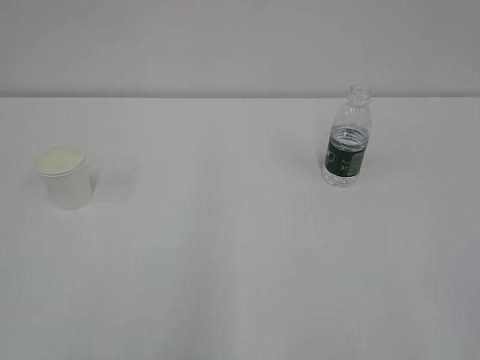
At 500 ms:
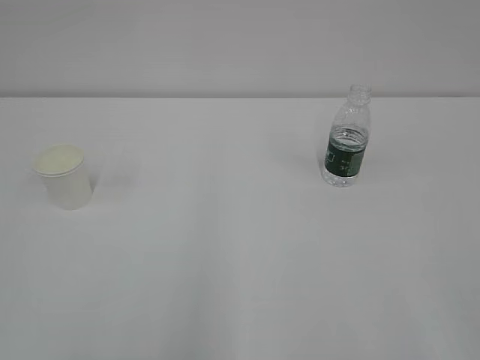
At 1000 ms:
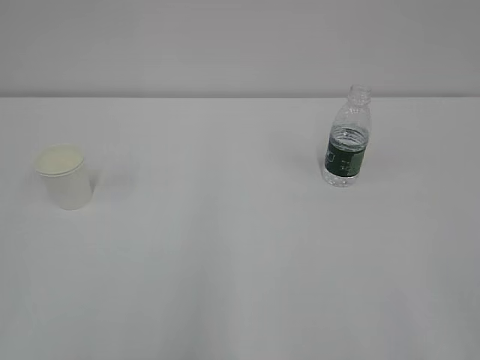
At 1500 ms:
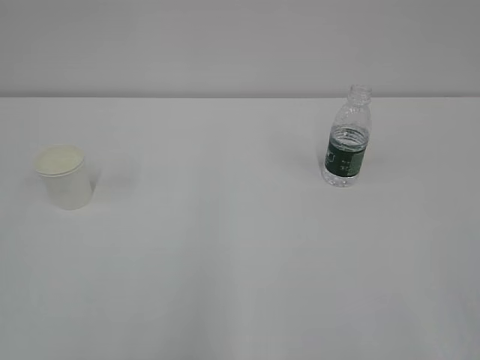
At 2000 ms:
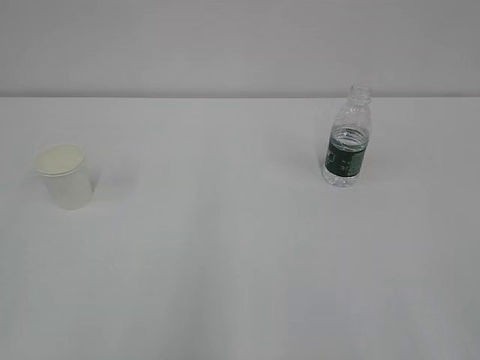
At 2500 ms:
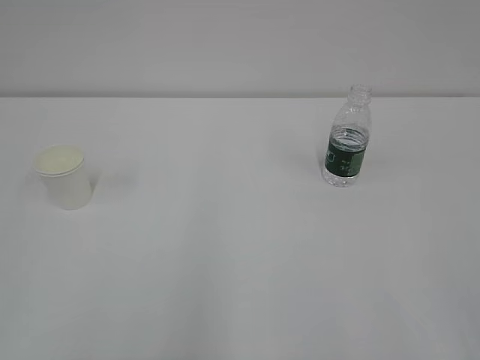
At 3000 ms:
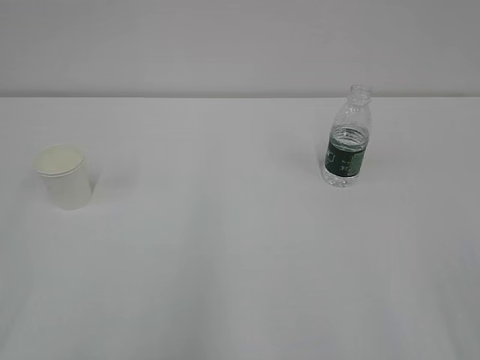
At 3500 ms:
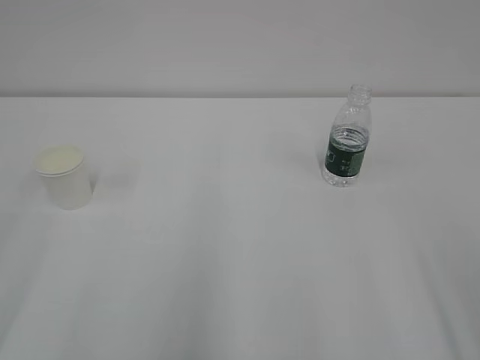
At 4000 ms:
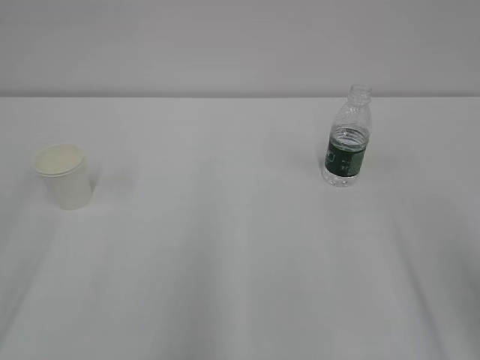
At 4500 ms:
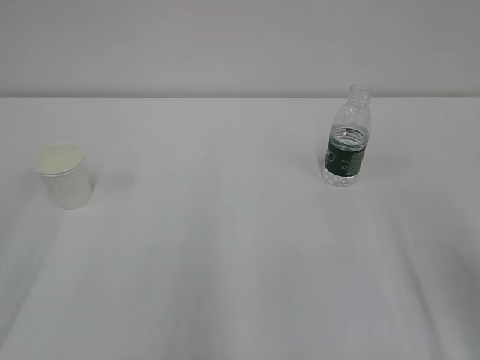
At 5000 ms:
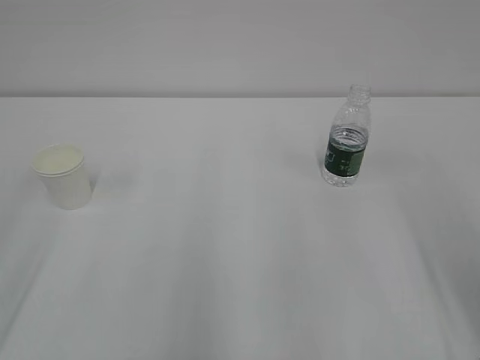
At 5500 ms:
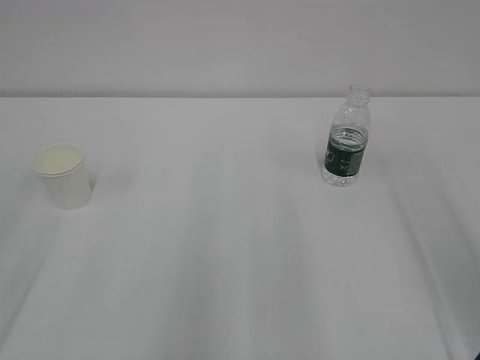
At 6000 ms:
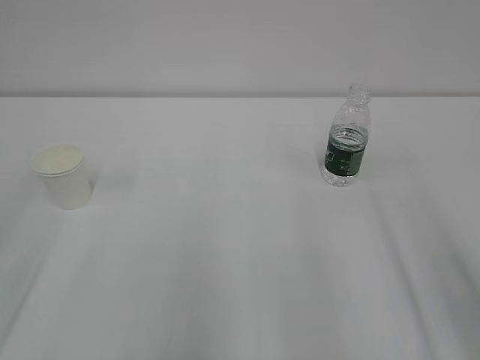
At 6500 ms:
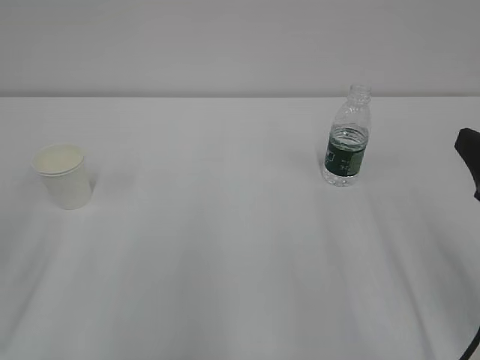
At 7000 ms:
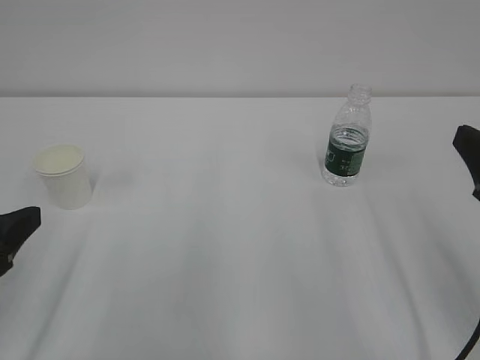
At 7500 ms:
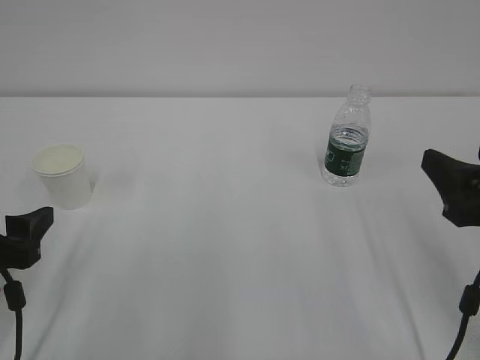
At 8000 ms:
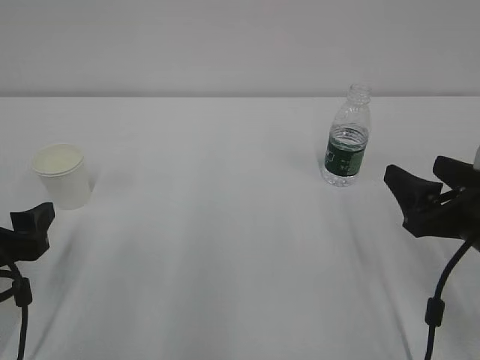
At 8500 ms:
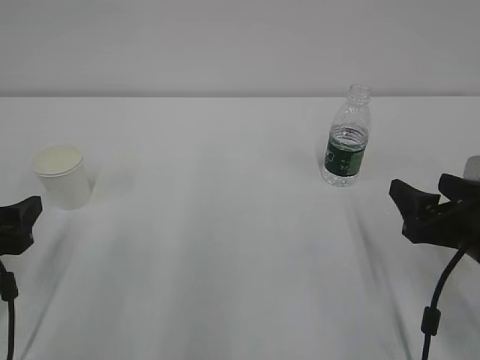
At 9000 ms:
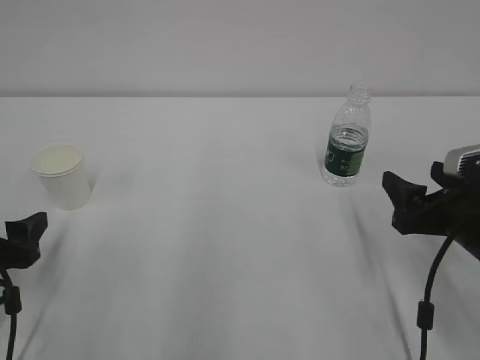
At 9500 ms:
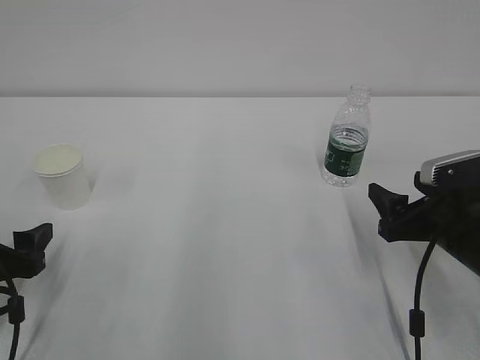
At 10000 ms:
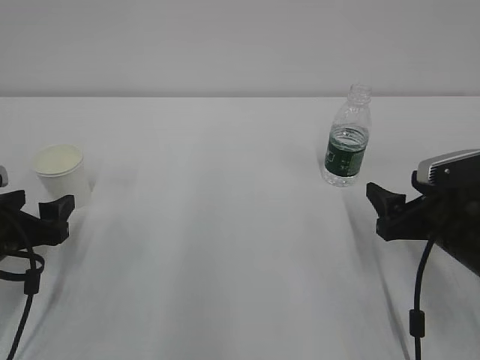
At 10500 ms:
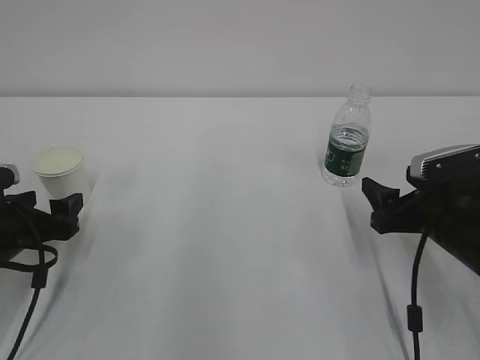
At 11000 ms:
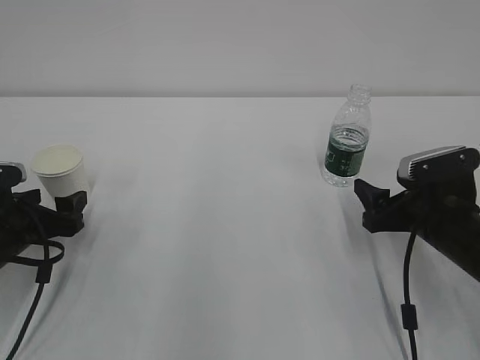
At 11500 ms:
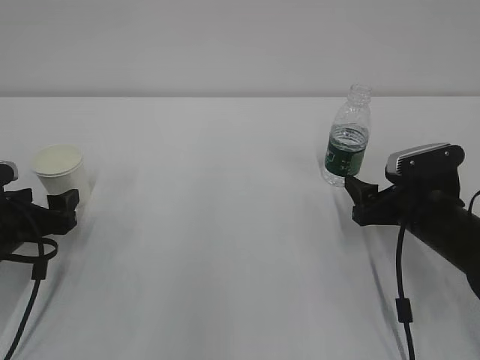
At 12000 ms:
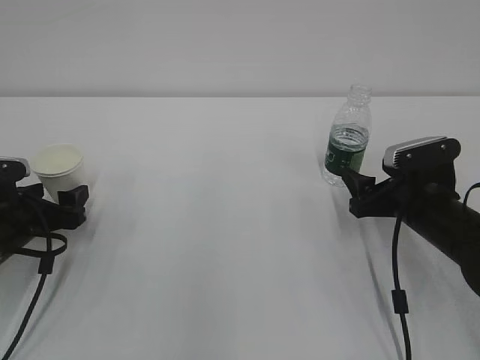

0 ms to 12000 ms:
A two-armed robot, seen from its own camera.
6000 ms to 8000 ms: The left gripper is displaced downward by some 15 cm. The right gripper moves downward and forward, some 15 cm.
8000 ms to 10000 ms: The right gripper moves some 5 cm, while the left gripper goes about 5 cm forward.
10000 ms to 12000 ms: The right gripper travels forward by approximately 5 cm. Meanwhile the left gripper ends up roughly 5 cm from where it was.

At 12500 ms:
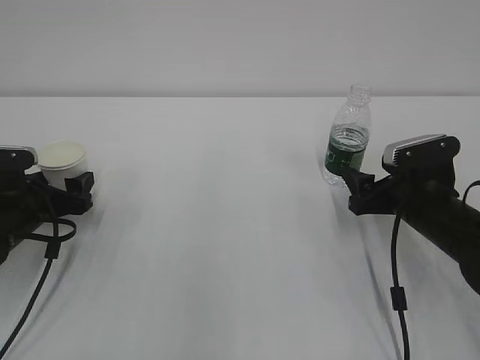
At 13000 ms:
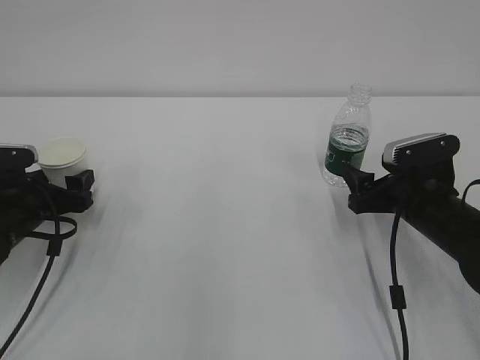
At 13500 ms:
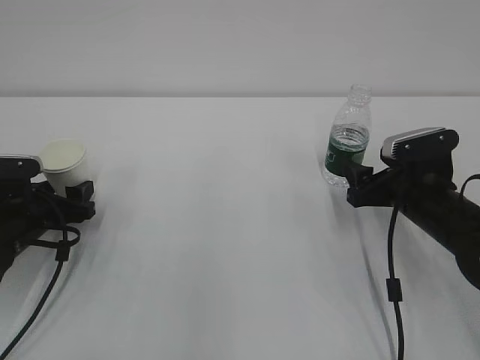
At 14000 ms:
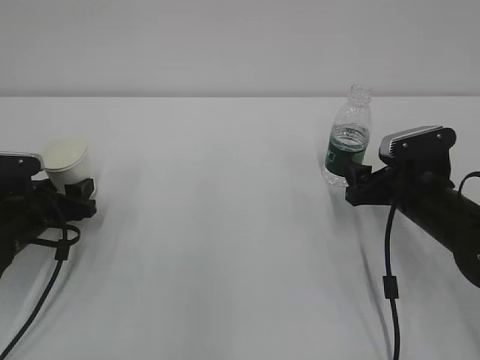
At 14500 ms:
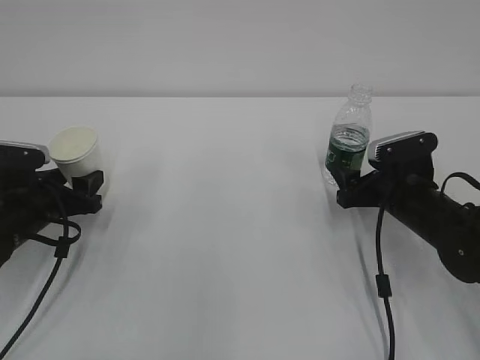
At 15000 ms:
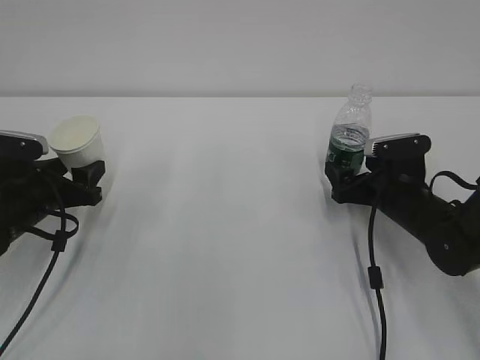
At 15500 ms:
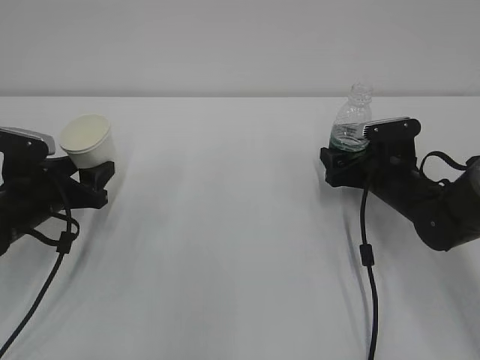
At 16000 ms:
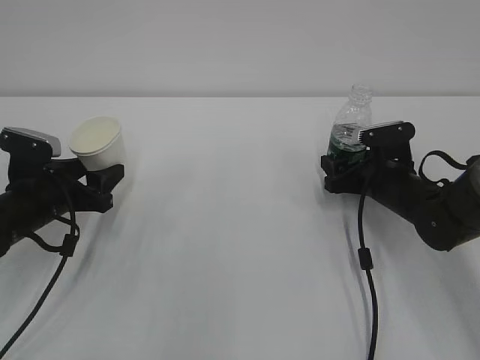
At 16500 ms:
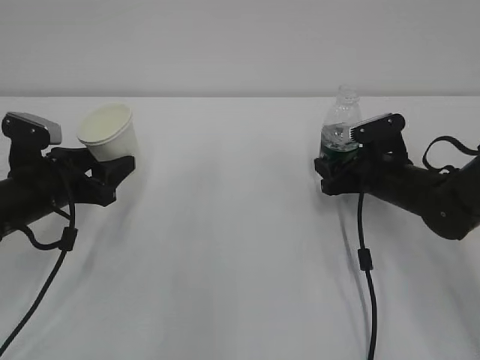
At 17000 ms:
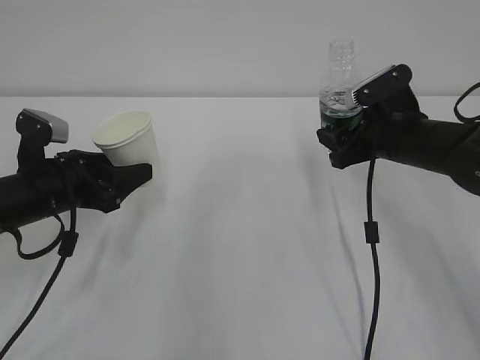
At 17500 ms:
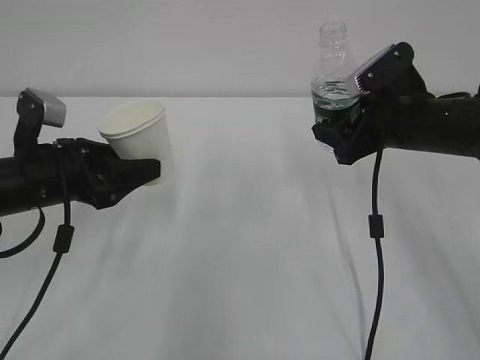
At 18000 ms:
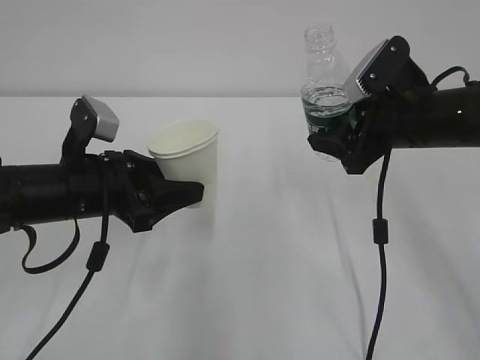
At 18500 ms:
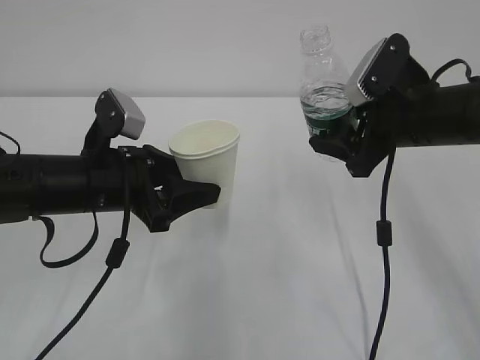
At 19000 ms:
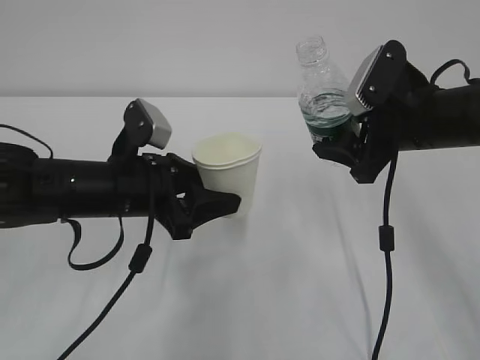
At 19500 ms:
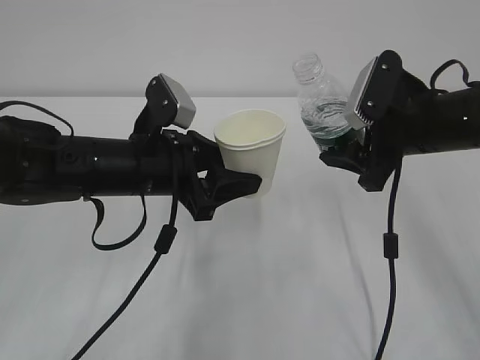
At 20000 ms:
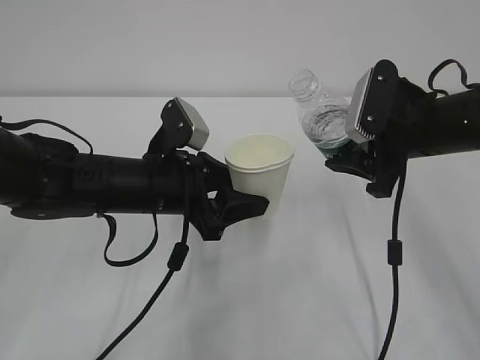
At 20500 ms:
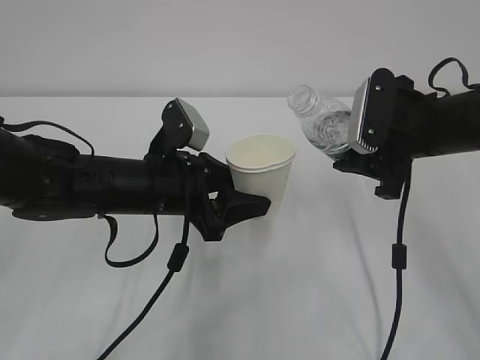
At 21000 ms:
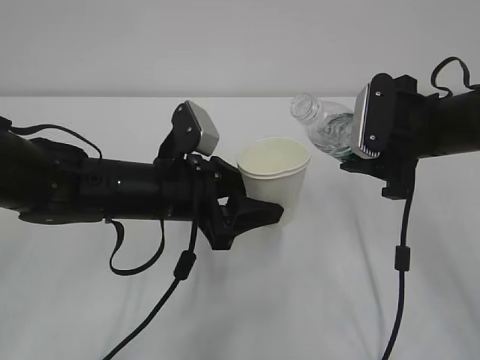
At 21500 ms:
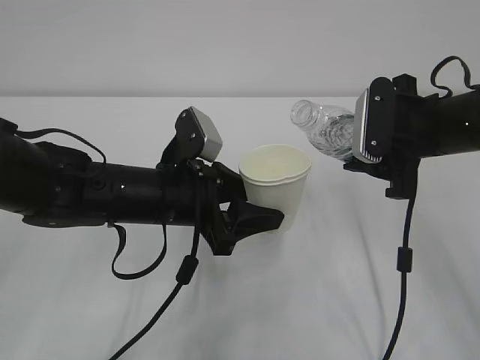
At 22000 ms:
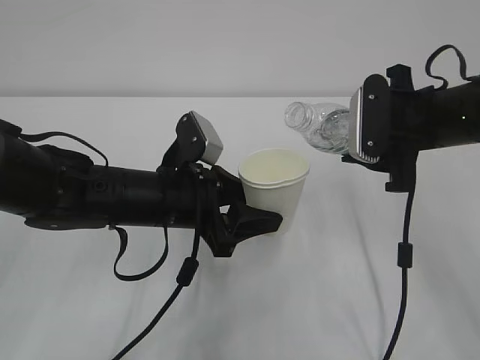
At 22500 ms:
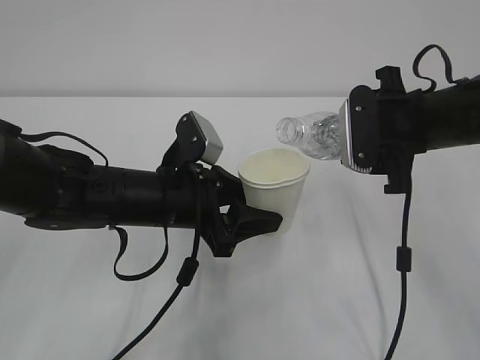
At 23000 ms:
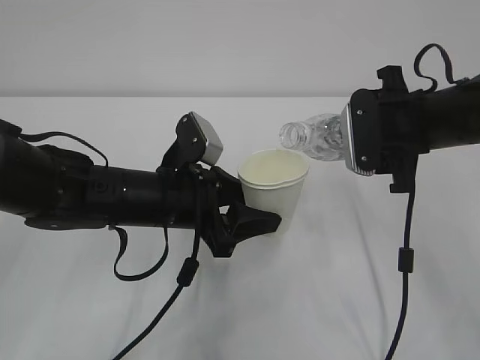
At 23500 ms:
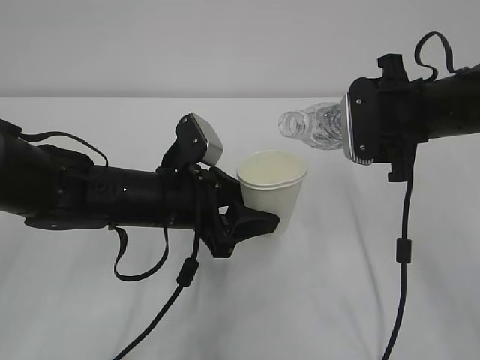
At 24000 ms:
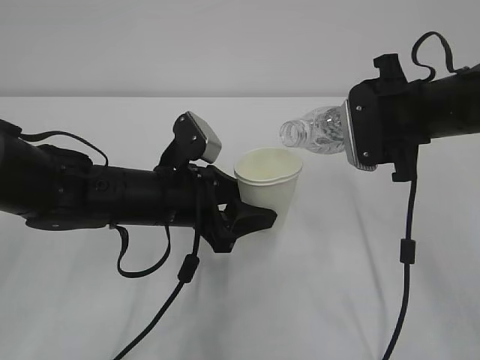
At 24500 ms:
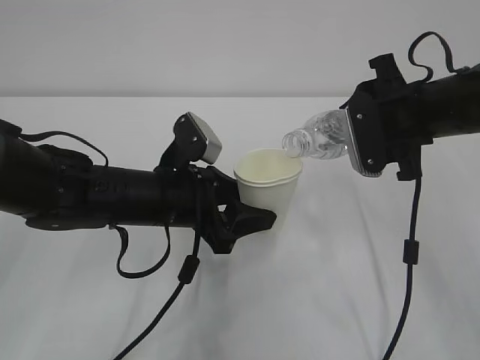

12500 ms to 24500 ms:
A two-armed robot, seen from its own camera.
12500 ms to 14500 ms: The left gripper closes its fingers.
14500 ms to 16500 ms: The left gripper changes place by roughly 5 cm. The right gripper closes up.
16500 ms to 18500 ms: The right gripper shifts about 15 cm upward, while the left gripper shifts about 10 cm to the right and upward.
18500 ms to 20500 ms: The left gripper travels to the right by approximately 5 cm.
20500 ms to 22500 ms: There are only small adjustments of the grippers.
22500 ms to 24500 ms: The grippers stay close to where they were, moving slightly.

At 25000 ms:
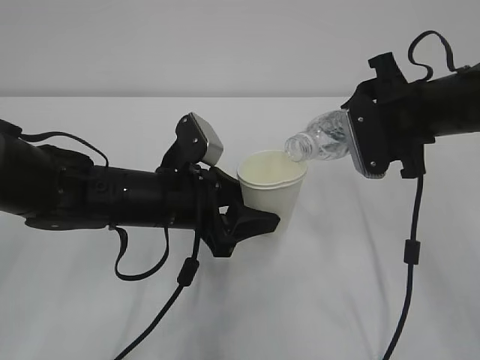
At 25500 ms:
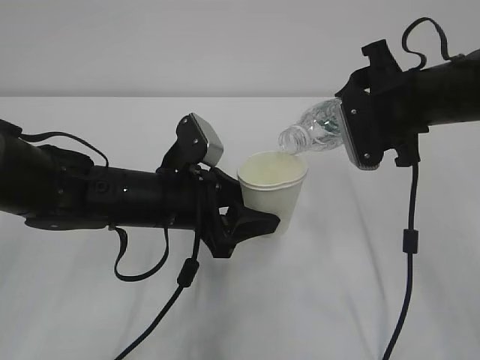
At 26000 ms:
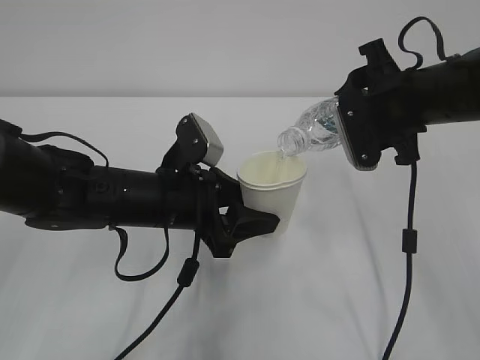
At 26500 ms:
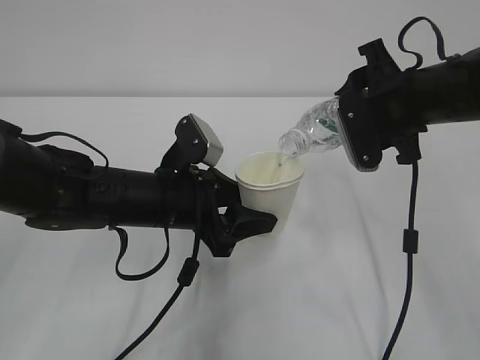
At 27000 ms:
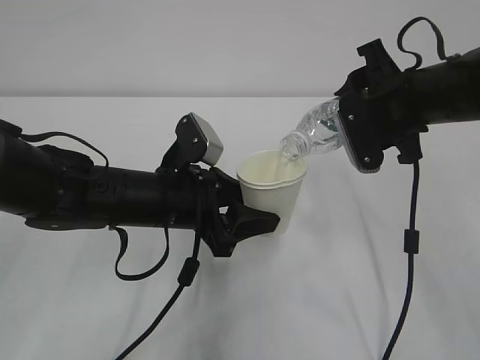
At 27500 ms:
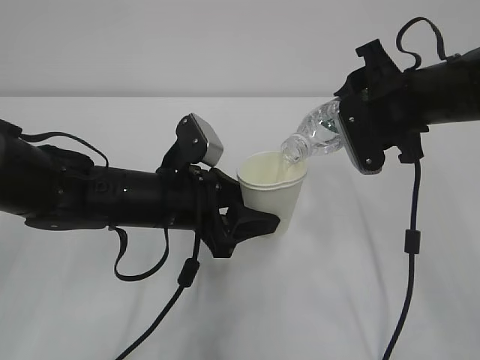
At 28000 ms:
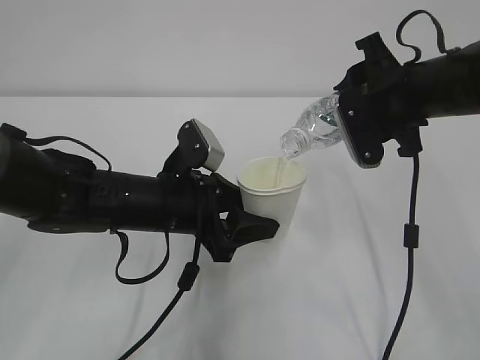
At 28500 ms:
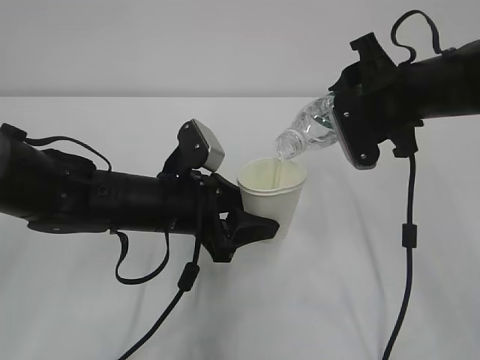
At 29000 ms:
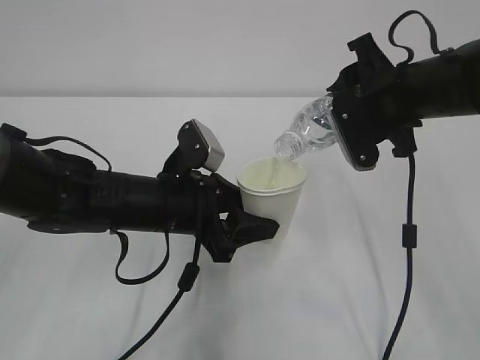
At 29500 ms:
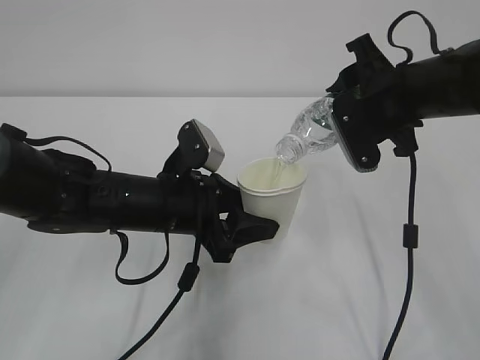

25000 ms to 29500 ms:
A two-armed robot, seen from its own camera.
25000 ms to 29500 ms: The grippers stay close to where they were, moving slightly.
